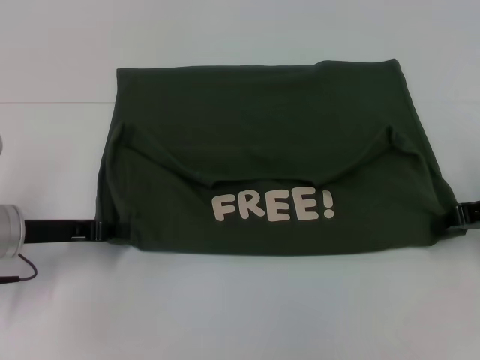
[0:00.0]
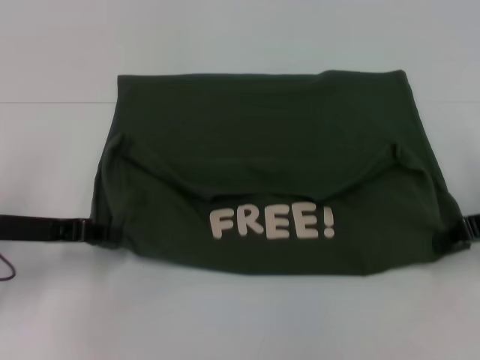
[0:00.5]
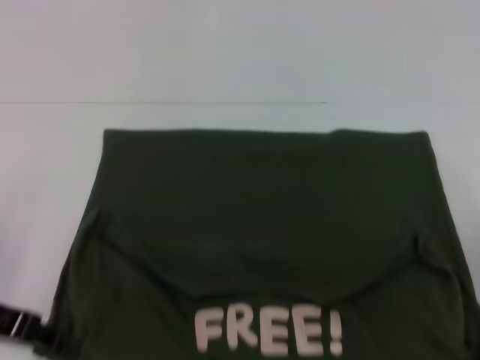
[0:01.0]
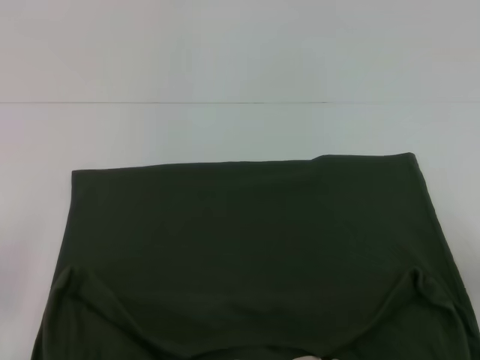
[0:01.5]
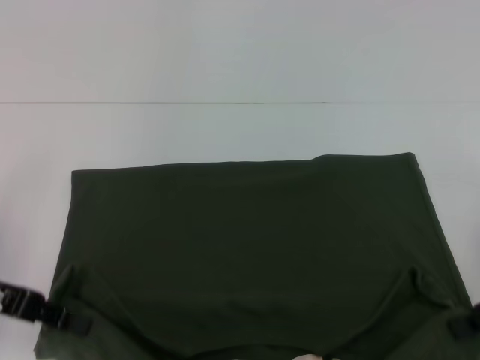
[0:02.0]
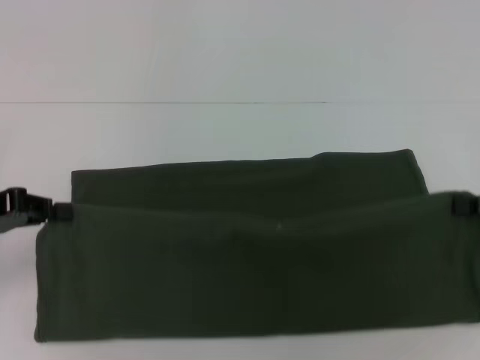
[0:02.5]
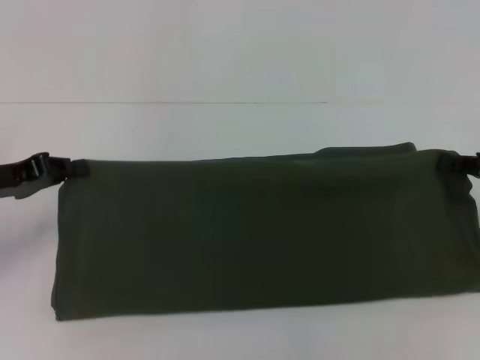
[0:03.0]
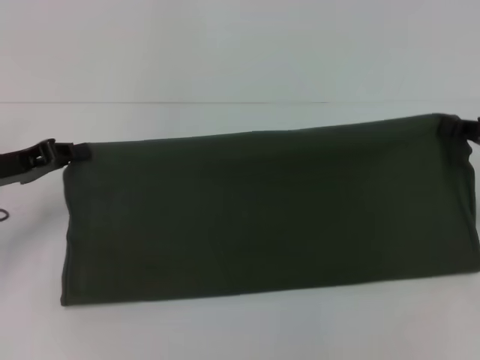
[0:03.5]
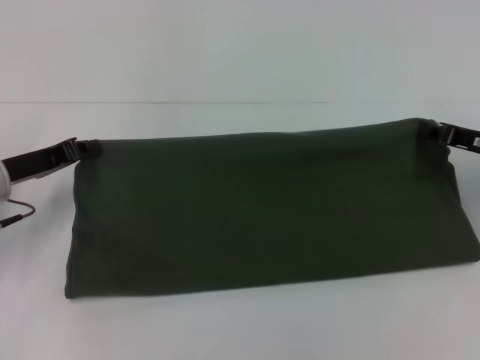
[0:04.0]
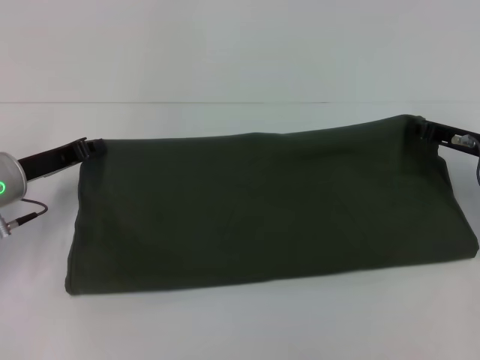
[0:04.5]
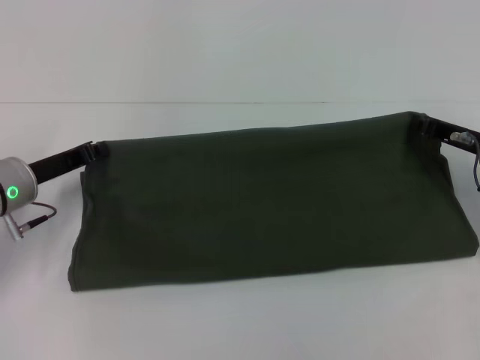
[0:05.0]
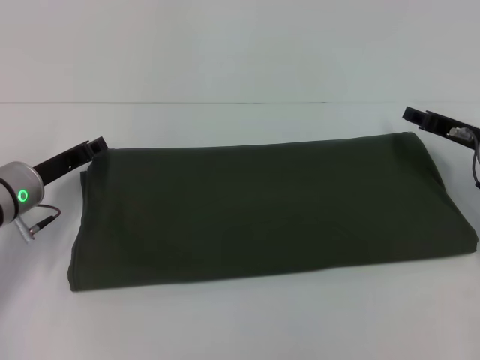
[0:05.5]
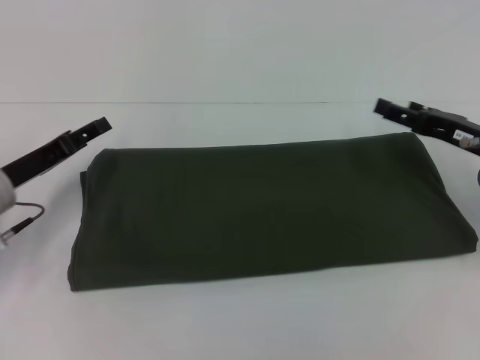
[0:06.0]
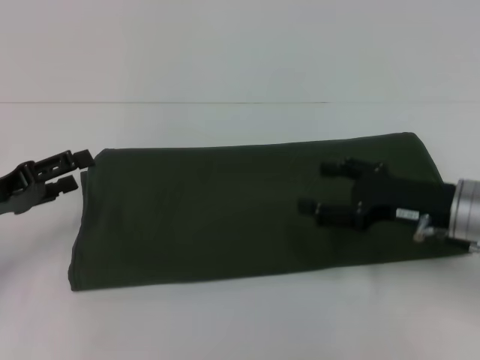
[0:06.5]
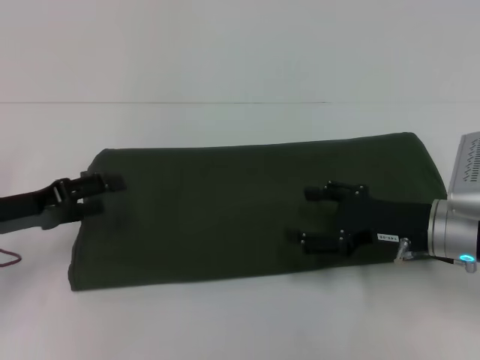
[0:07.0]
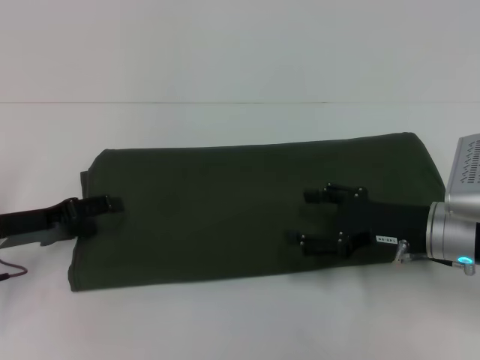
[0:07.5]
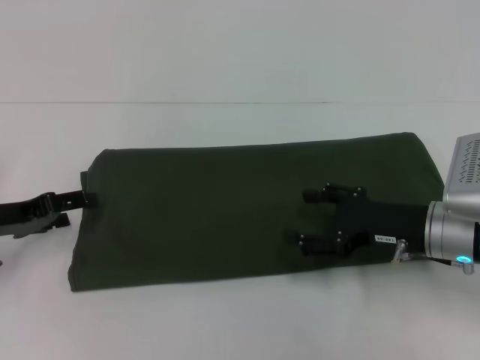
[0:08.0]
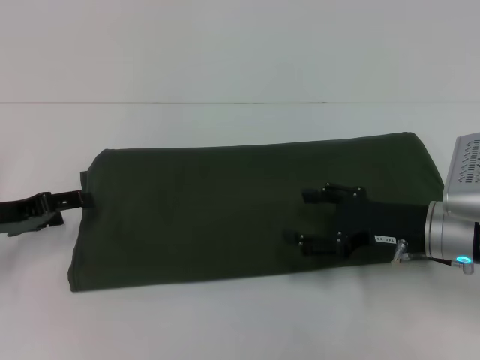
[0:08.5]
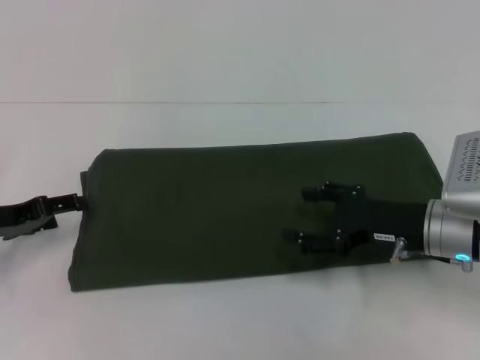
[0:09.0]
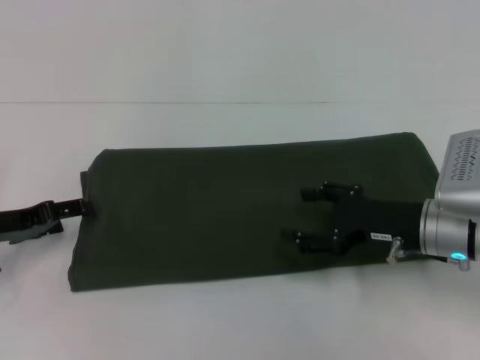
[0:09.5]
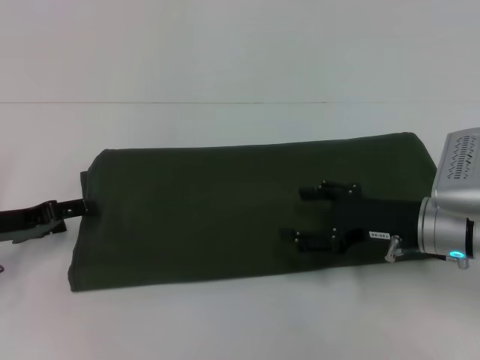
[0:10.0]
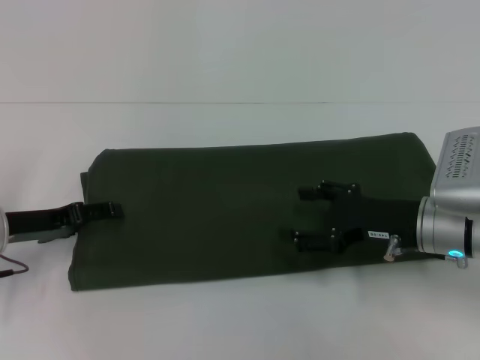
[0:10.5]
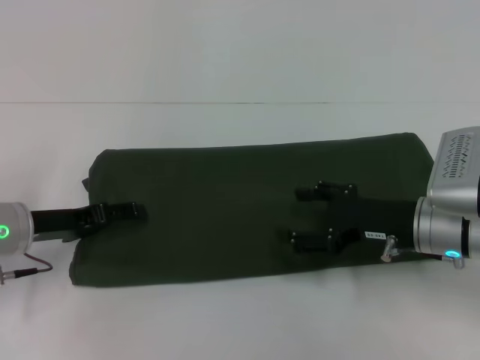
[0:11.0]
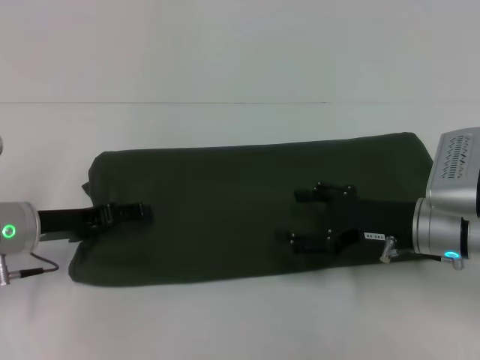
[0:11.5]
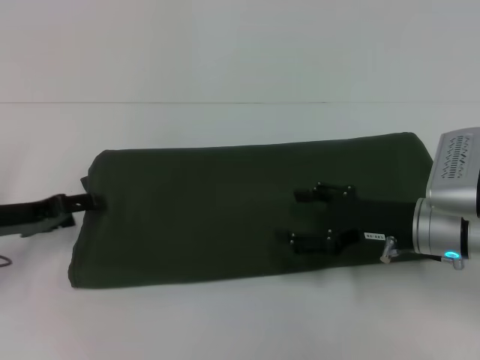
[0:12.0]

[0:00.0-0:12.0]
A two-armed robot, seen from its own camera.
Step, 0:02.0 to 0:05.0: Fold the clothes with your right hand.
0:00.0 to 0:02.0: The left gripper shifts approximately 10 cm upward and backward. The right gripper travels backward by approximately 5 cm.
0:02.0 to 0:04.0: Both grippers move forward, approximately 10 cm.
0:04.0 to 0:06.0: The right gripper opens its fingers. Meanwhile the left gripper opens its fingers.
0:06.0 to 0:08.0: The right gripper goes roughly 5 cm to the left.
0:08.0 to 0:10.0: Neither gripper changes place.
0:10.0 to 0:12.0: The grippers make only small movements.

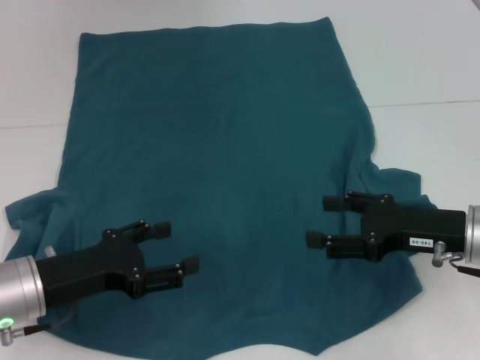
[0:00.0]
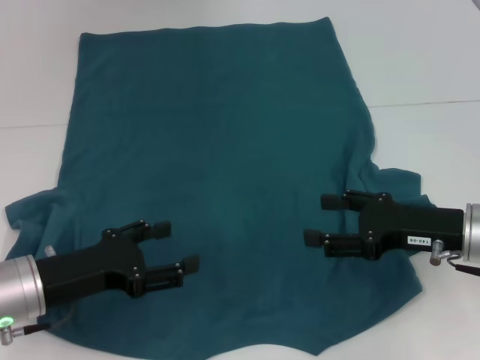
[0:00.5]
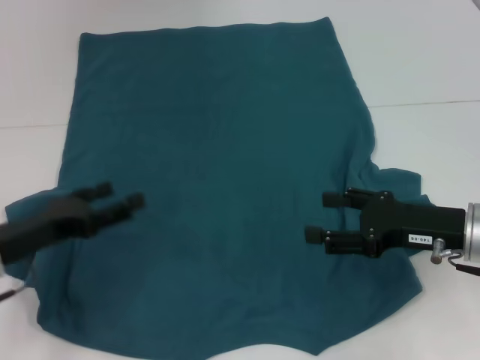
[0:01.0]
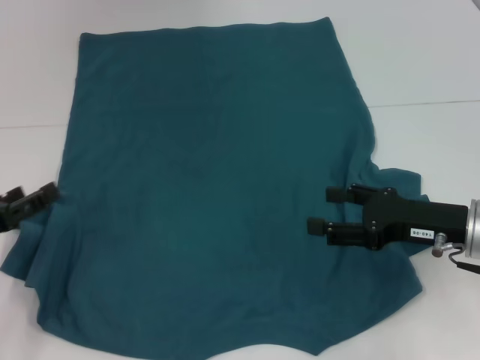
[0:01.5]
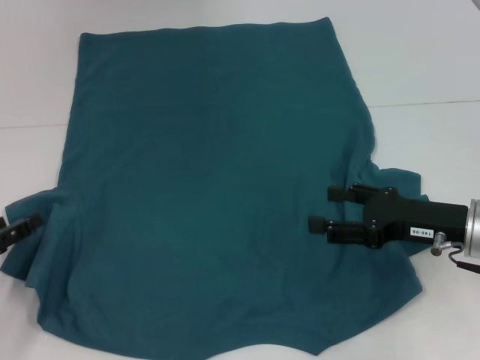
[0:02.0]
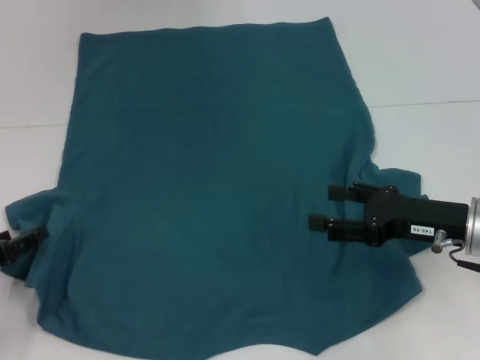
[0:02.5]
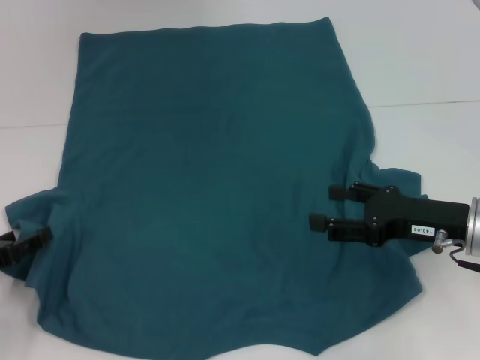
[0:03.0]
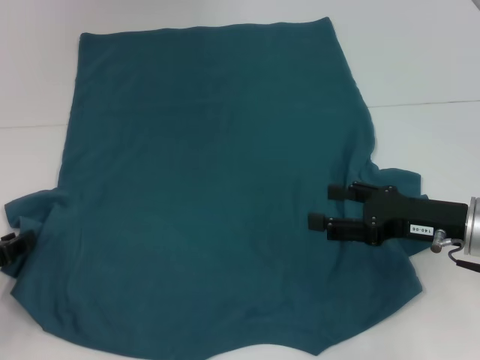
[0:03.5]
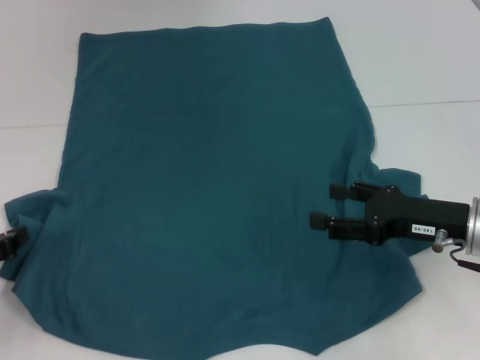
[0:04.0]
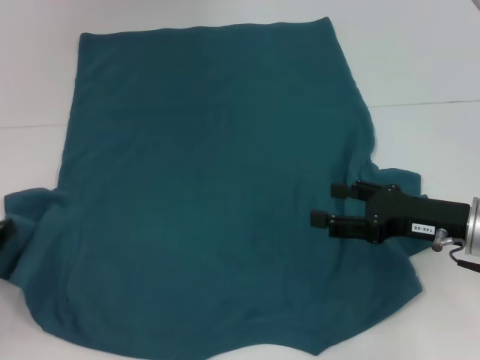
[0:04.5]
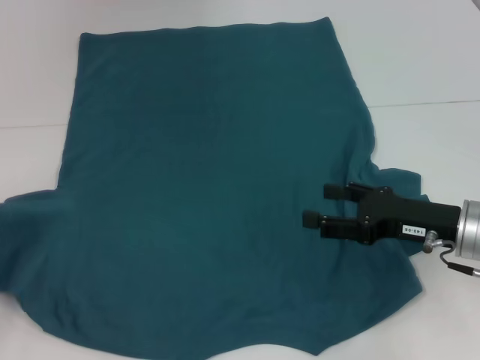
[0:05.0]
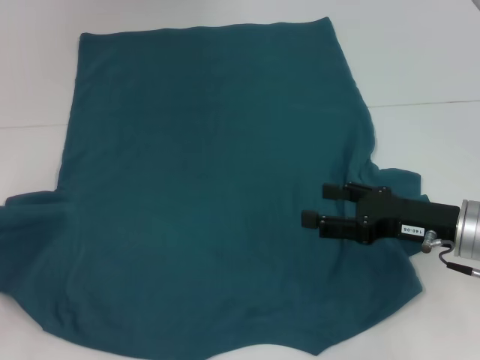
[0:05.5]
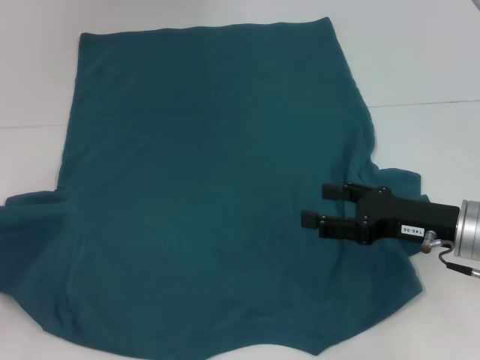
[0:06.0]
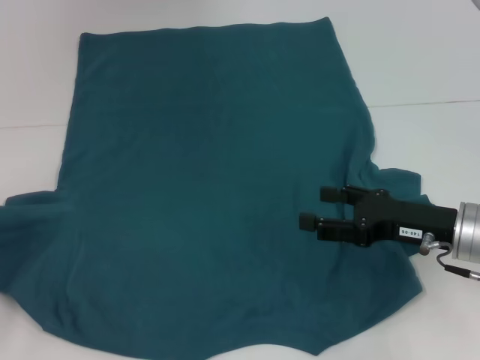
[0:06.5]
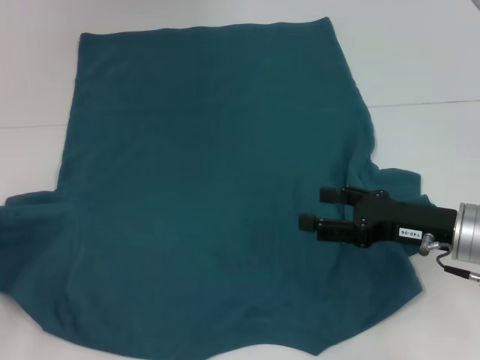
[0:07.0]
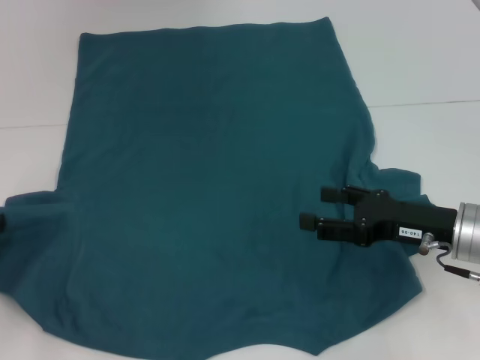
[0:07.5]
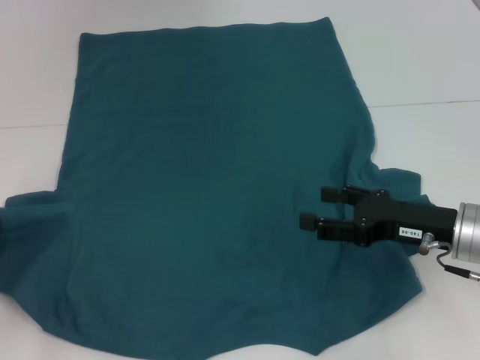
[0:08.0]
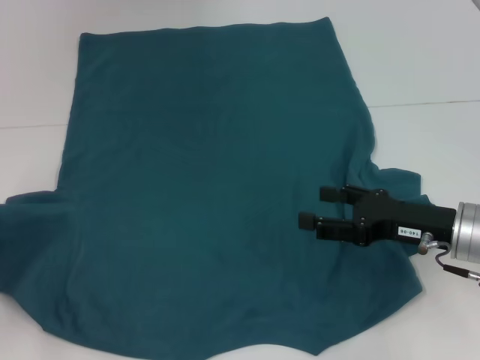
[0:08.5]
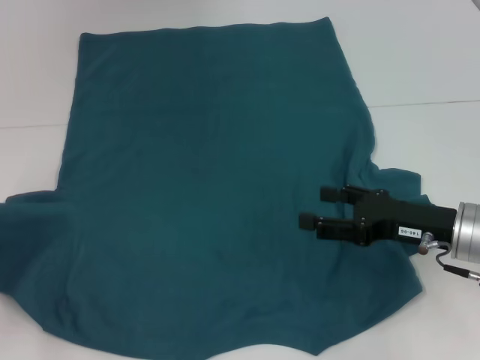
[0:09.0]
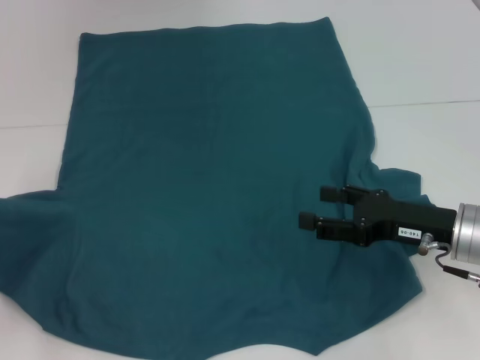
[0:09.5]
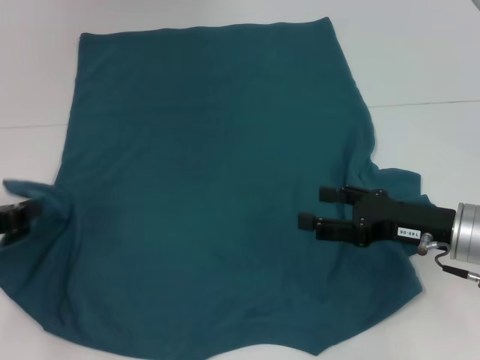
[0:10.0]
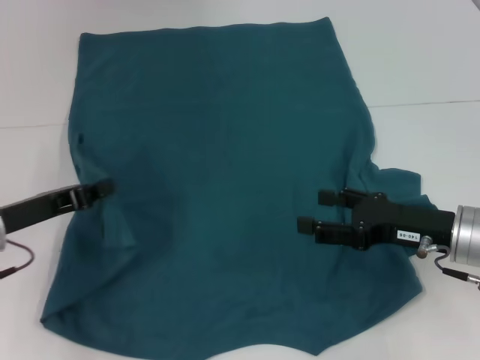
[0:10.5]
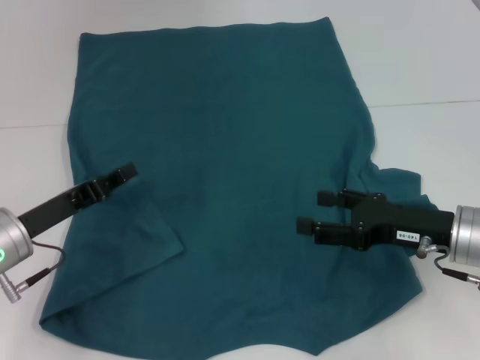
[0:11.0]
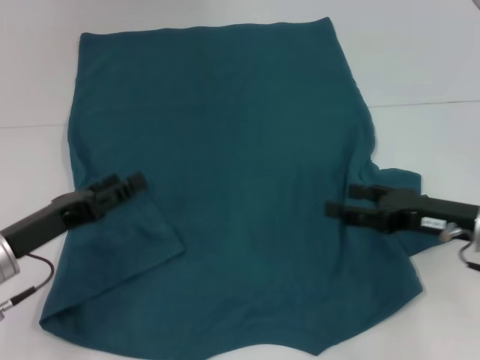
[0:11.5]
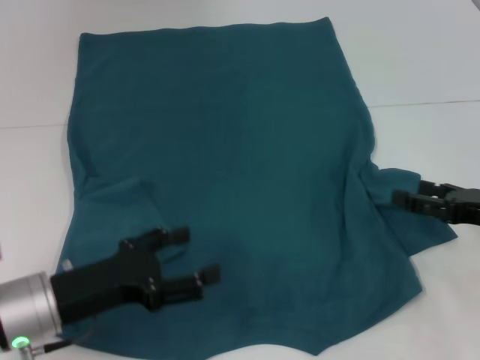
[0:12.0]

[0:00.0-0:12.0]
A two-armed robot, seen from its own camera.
Step, 0:00.0 to 0:11.0: Fold the bottom left sleeve with your left hand.
0:00.0 to 0:02.0: The left gripper travels to the left by roughly 10 cm.
0:02.0 to 0:04.0: The left gripper closes.
0:04.0 to 0:06.0: The left gripper moves roughly 5 cm.
0:08.0 to 0:10.0: The left gripper closes.
0:10.0 to 0:12.0: The grippers both shift to the right by some 10 cm. The left gripper opens up.

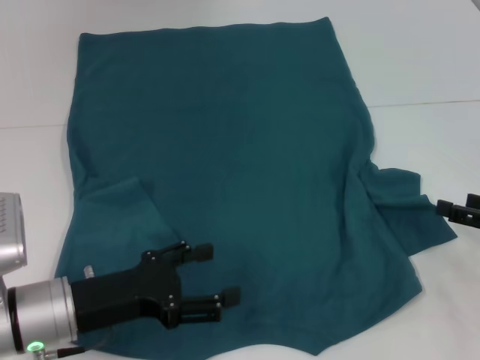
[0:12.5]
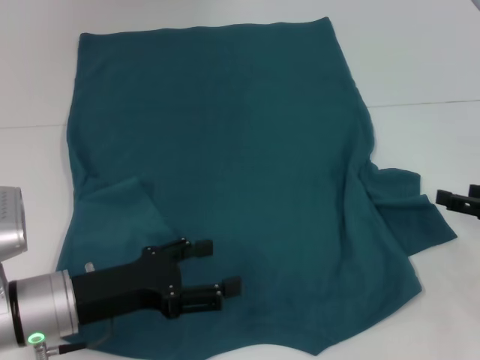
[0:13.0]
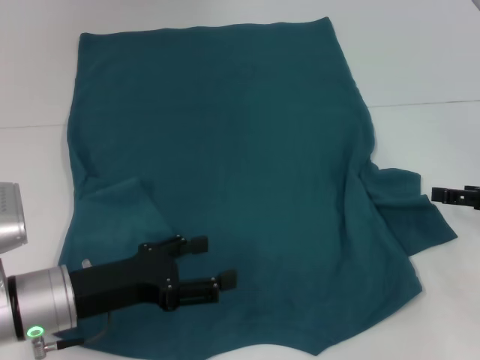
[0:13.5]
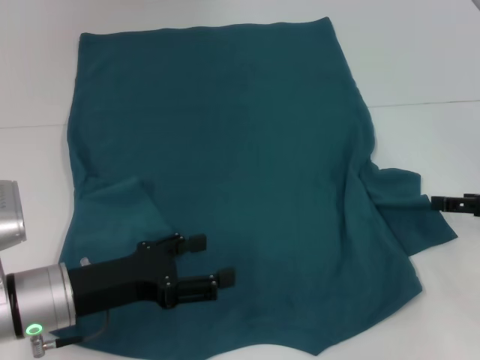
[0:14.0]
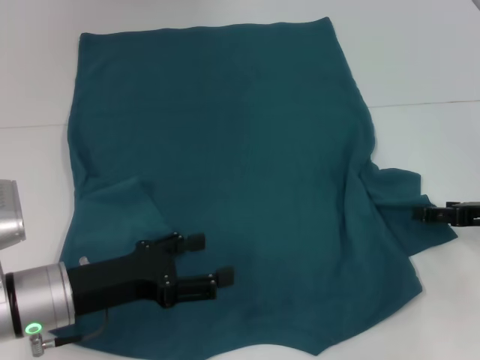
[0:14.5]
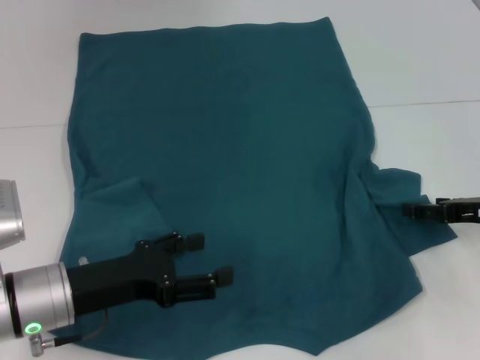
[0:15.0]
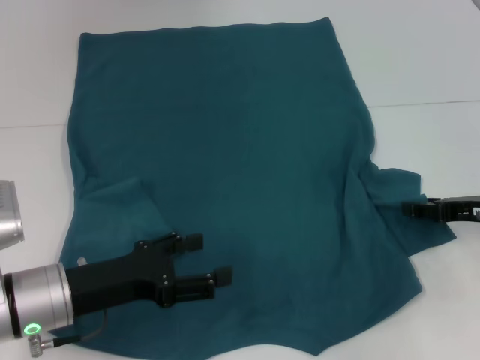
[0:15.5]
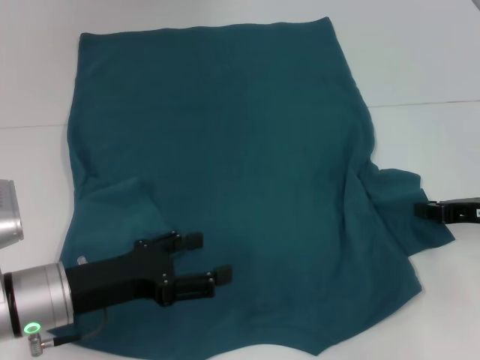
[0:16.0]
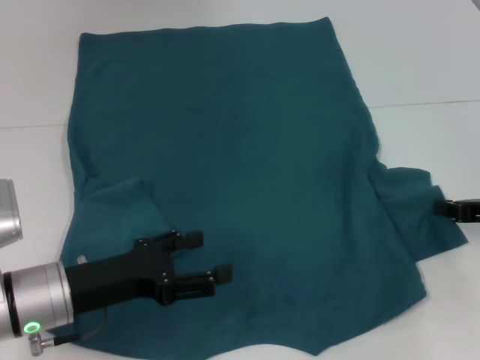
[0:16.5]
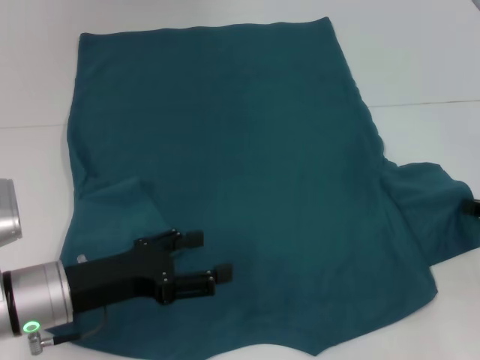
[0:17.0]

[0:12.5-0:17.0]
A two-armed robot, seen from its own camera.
0:12.5 to 0:14.5: The right gripper changes place by some 5 cm.
0:14.5 to 0:17.0: The right gripper closes its fingers.
